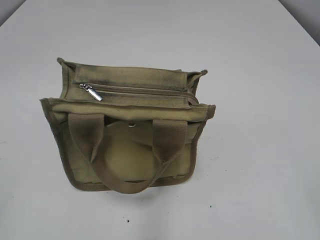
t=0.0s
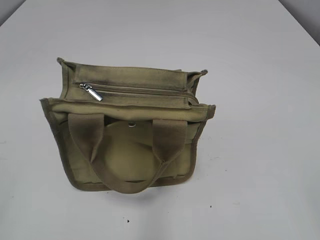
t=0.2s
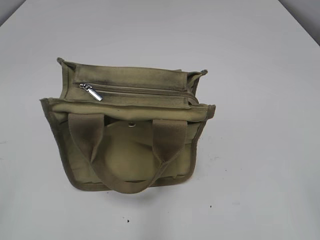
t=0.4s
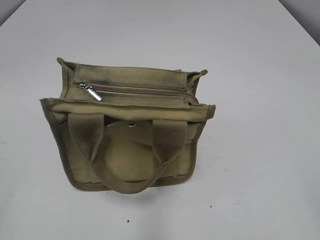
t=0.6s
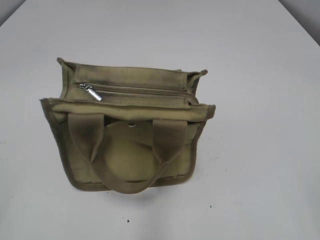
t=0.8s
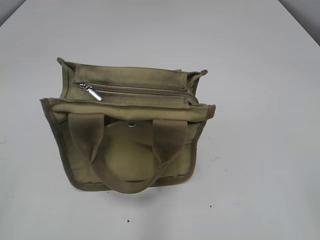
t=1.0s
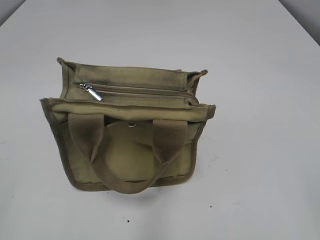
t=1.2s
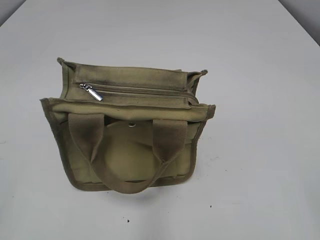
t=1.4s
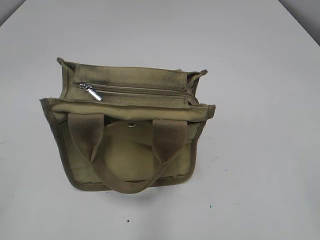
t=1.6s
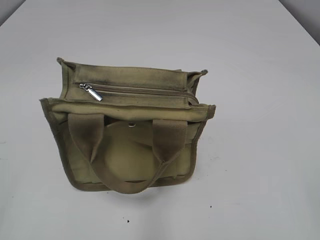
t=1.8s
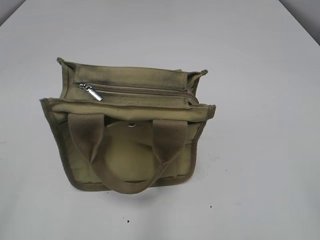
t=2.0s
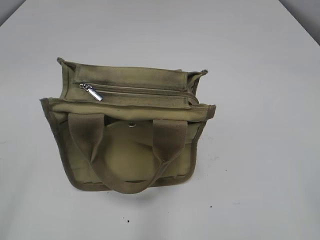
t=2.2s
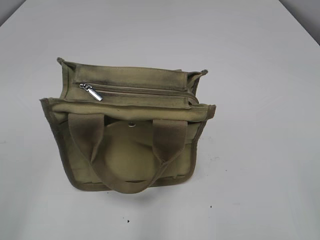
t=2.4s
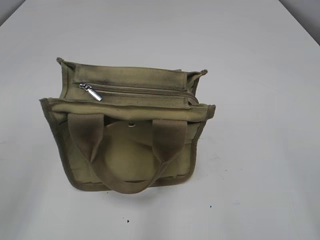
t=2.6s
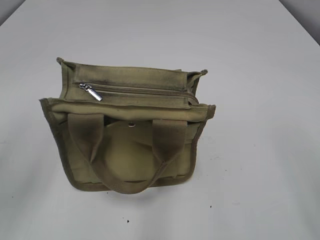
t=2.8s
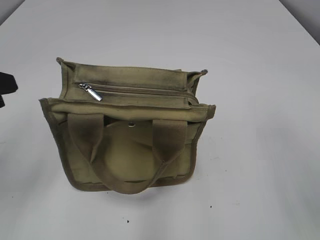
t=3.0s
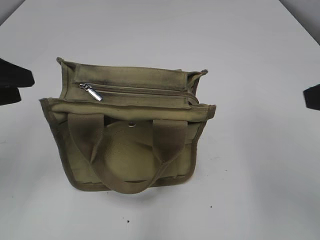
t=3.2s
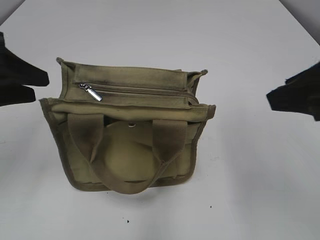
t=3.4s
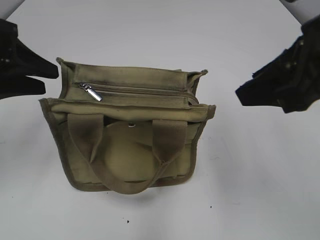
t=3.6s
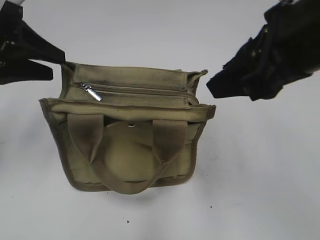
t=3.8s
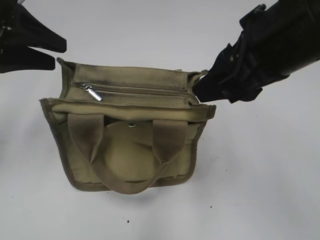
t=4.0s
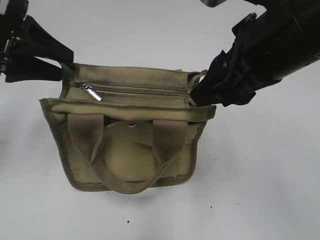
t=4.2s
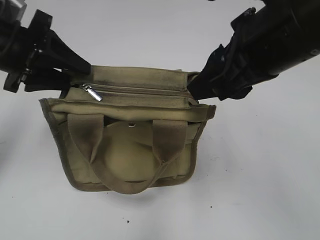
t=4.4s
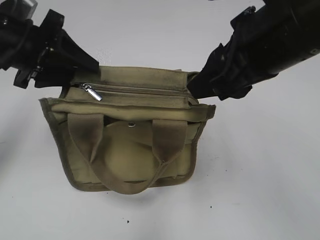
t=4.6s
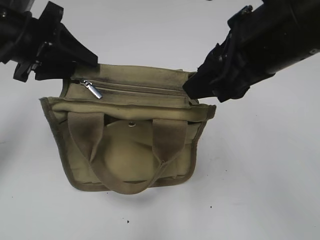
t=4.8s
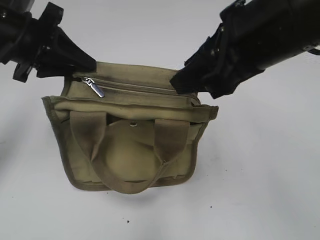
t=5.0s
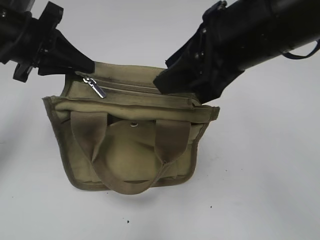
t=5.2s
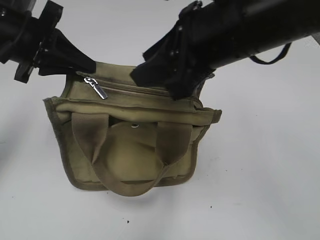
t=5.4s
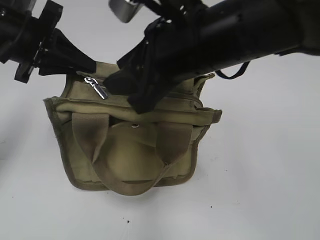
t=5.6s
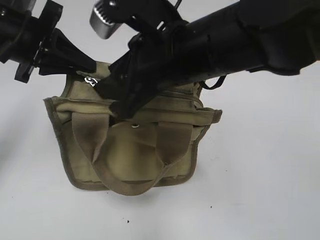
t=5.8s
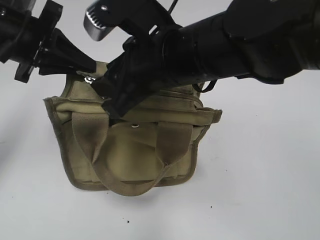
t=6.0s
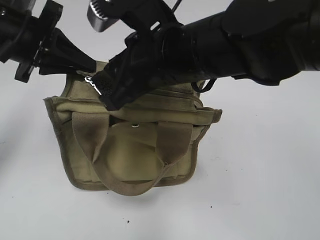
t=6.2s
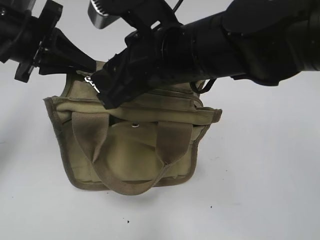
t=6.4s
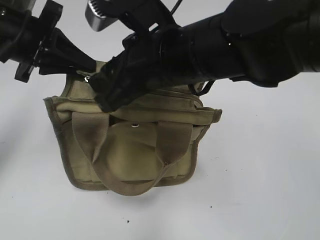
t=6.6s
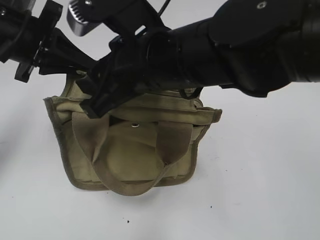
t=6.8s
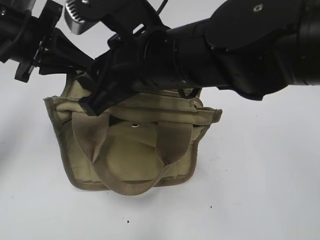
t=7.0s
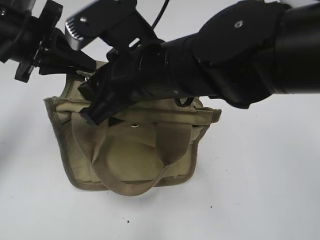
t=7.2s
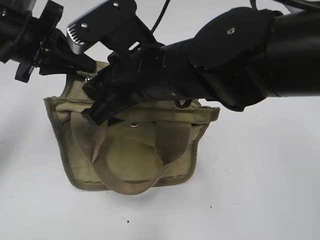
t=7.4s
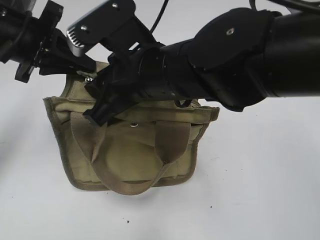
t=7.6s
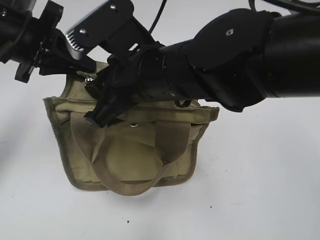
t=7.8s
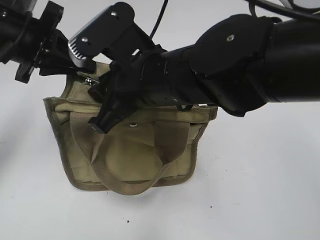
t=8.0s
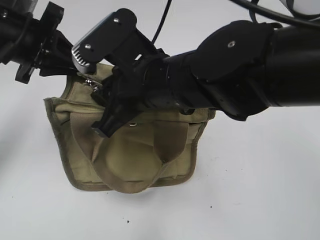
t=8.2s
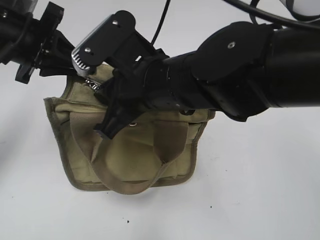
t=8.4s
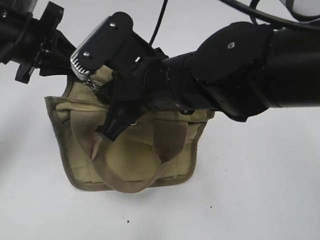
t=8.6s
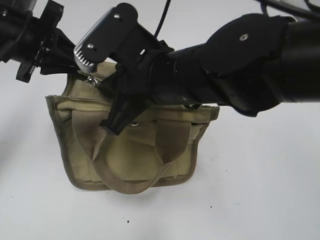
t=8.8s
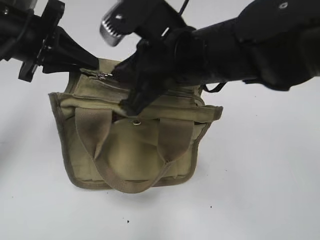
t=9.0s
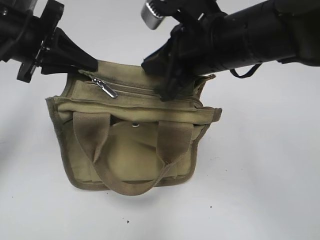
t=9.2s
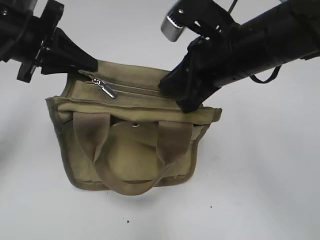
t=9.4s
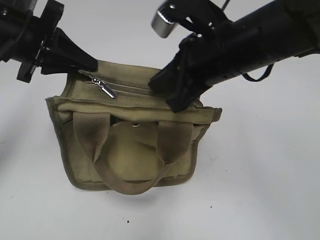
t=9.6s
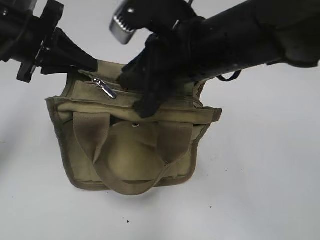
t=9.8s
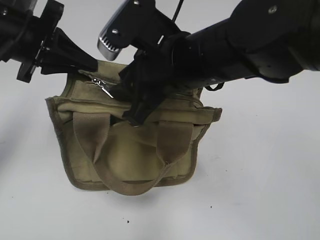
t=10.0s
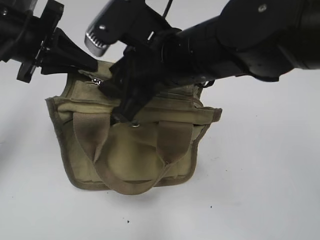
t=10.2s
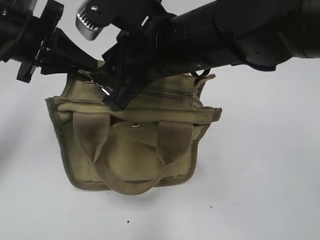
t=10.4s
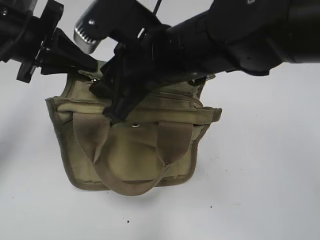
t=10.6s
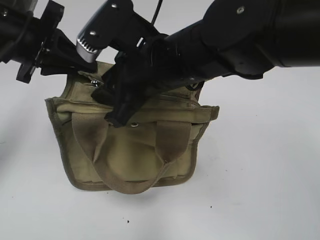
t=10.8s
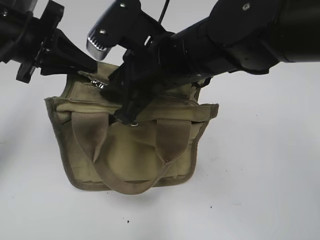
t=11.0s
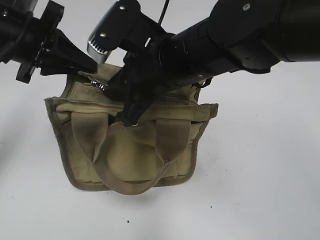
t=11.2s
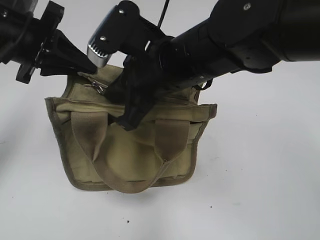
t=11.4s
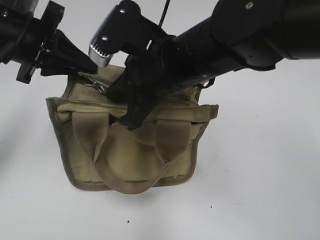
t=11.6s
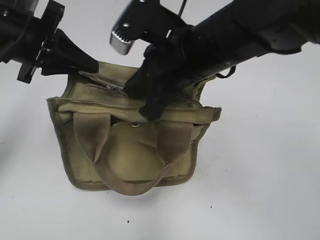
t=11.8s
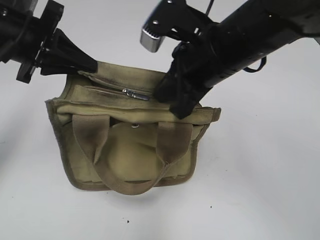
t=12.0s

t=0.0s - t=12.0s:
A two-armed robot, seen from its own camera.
t=1.6s - t=3.0s: The left gripper moves forward, about 20 cm.
t=3.0s - t=4.4s: The left gripper shifts some 15 cm forward and to the right. The right gripper is displaced to the left and forward by some 15 cm.
t=4.4s - t=6.0s: The left gripper closes up, while the right gripper moves to the left and downward, roughly 10 cm.
t=6.0s - t=7.6s: The grippers move only a little.
t=7.6s - t=9.0s: The right gripper closes up.
t=9.0s - t=10.4s: The right gripper reaches some 5 cm to the right, then returns, and opens its fingers.
t=10.4s - t=12.0s: The right gripper is displaced to the right by roughly 5 cm, and closes.

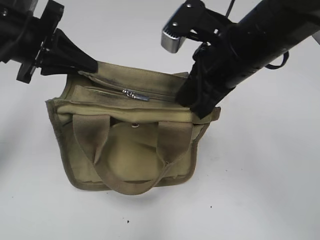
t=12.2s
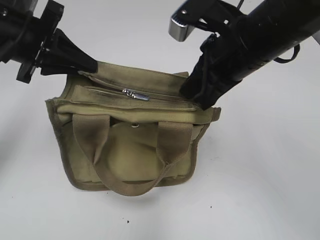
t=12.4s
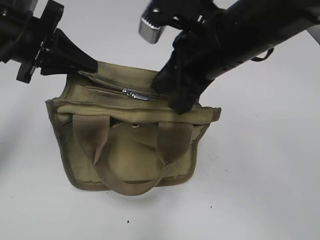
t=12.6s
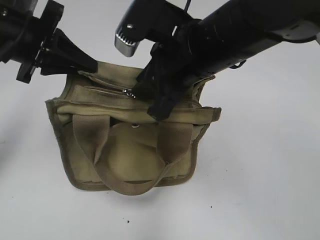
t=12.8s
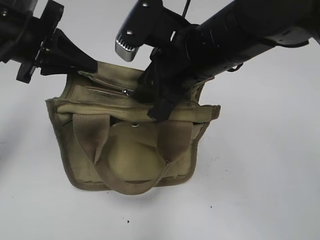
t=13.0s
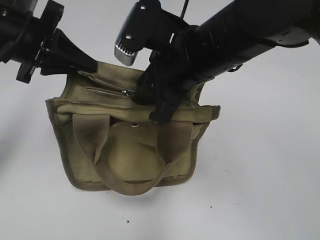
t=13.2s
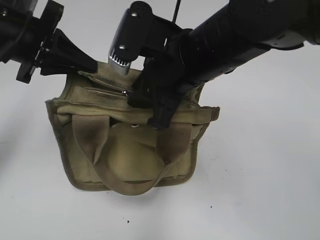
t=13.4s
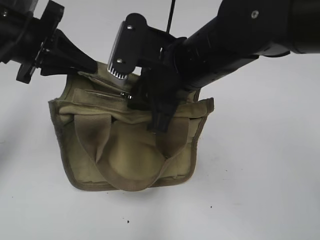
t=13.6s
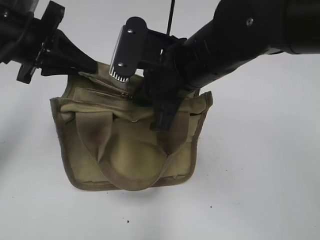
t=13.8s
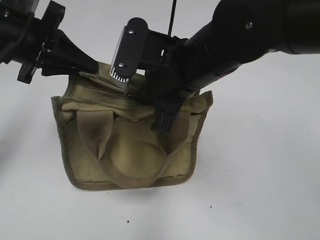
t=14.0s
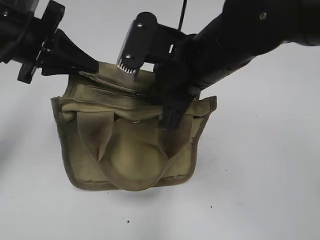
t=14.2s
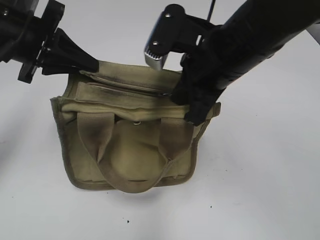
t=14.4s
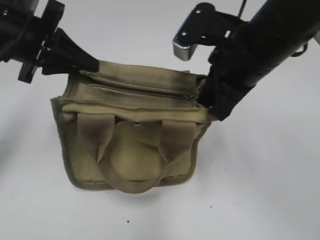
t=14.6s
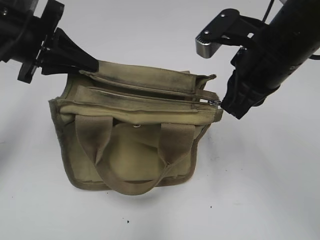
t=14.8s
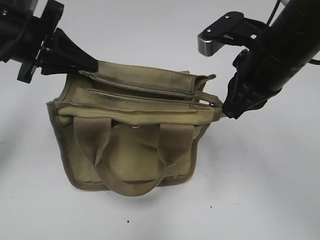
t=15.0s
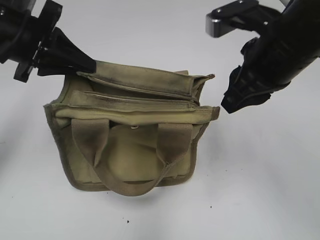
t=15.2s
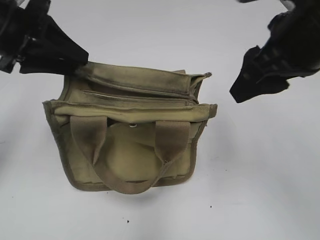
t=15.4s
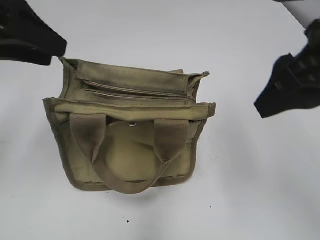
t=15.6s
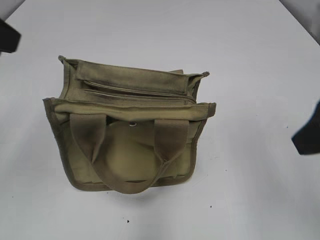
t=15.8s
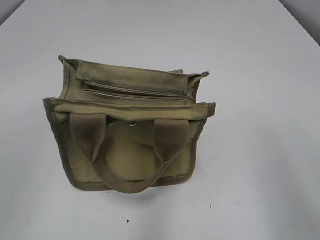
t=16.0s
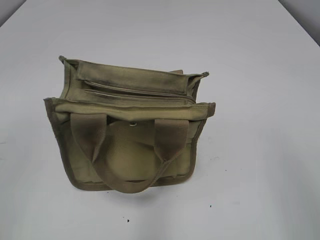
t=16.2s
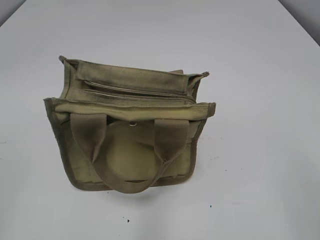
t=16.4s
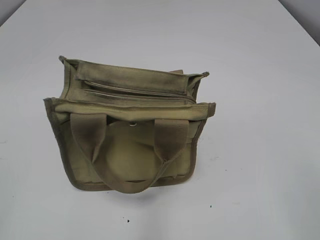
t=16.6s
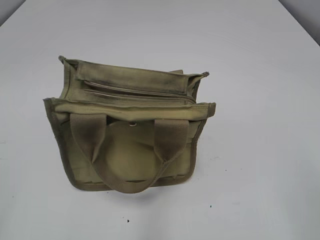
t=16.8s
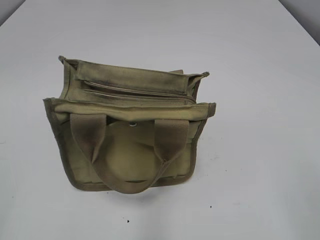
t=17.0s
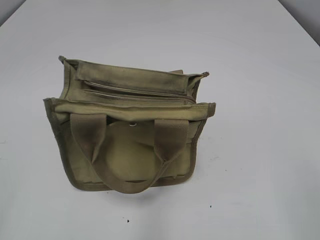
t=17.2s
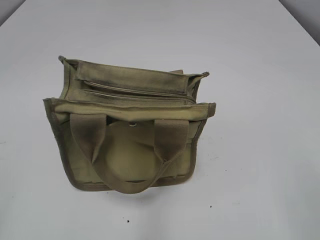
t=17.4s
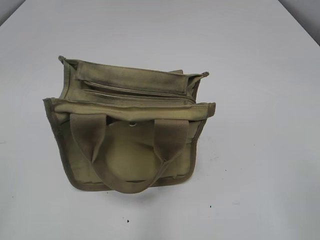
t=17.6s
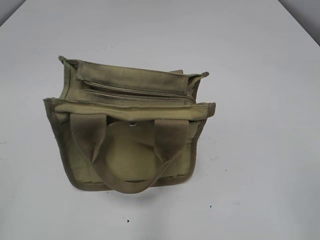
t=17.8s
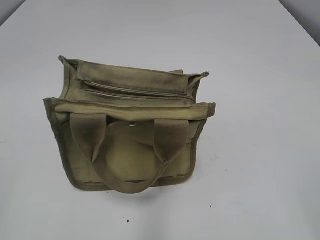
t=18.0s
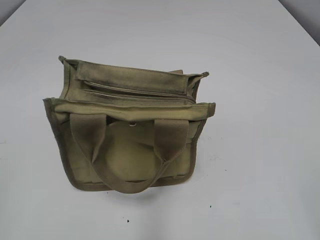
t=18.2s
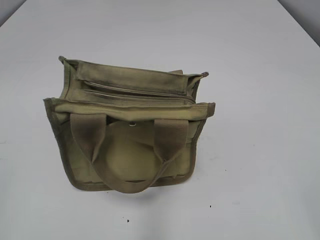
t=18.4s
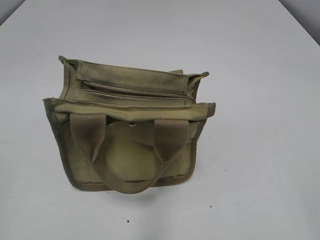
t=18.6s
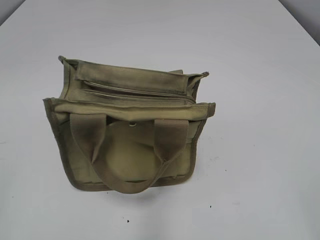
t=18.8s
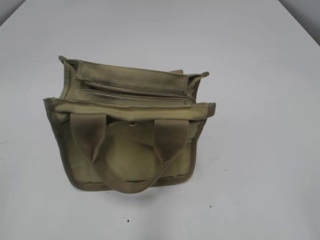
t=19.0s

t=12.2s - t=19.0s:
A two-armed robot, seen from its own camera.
Step, t=12.2s - t=15.0s: Pull open the zipper with your right hand.
Step, t=15.2s - t=15.6s: Hold the bag with your left hand.
t=12.2s - t=13.6s: The right gripper is displaced to the left by some 5 cm, and opens its fingers.
t=13.6s - t=15.0s: The right gripper is displaced to the right by about 10 cm, and closes up.
t=15.0s - t=16.2s: The right gripper moves backward and to the right, some 25 cm, and opens up. The left gripper goes approximately 25 cm backward, and opens.

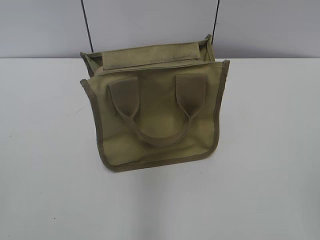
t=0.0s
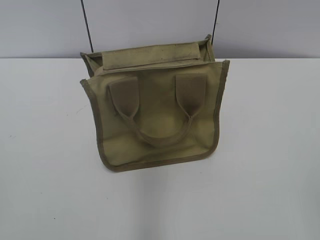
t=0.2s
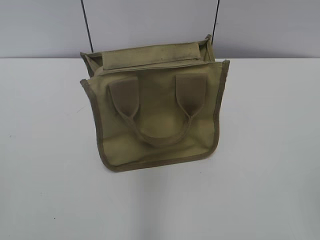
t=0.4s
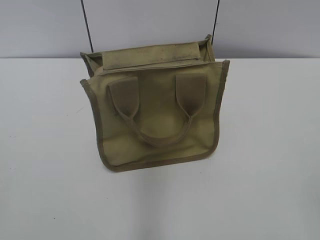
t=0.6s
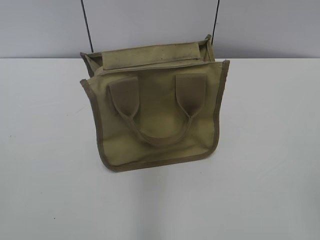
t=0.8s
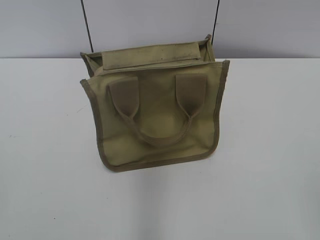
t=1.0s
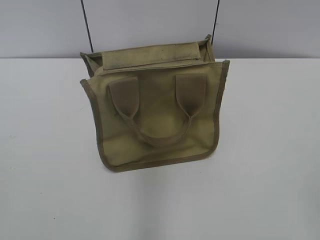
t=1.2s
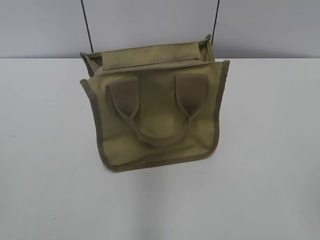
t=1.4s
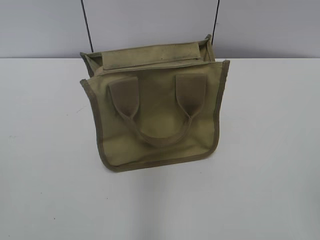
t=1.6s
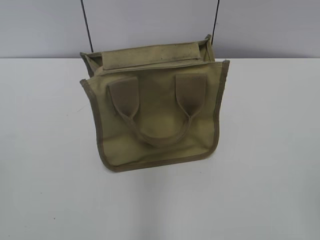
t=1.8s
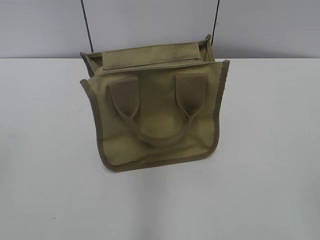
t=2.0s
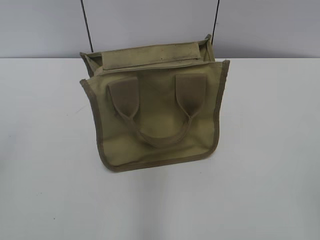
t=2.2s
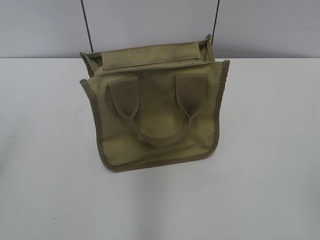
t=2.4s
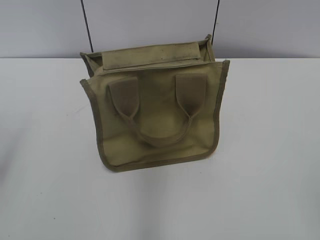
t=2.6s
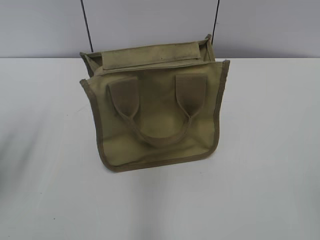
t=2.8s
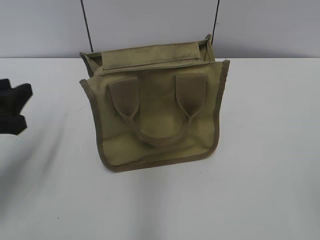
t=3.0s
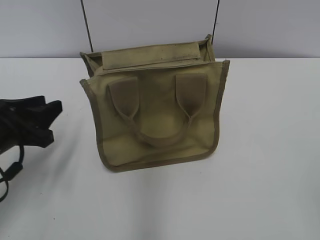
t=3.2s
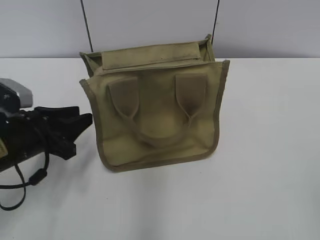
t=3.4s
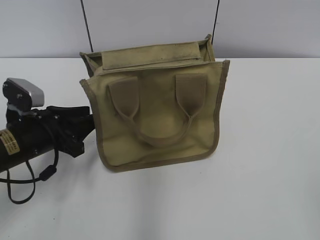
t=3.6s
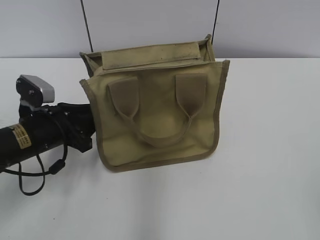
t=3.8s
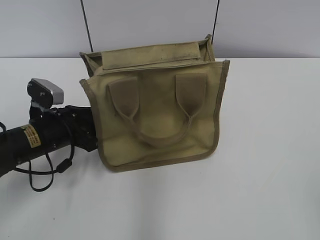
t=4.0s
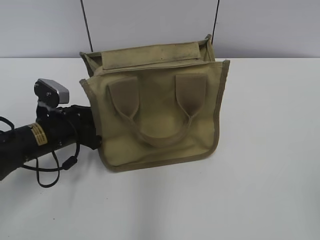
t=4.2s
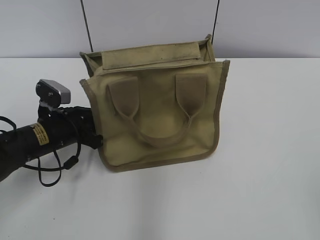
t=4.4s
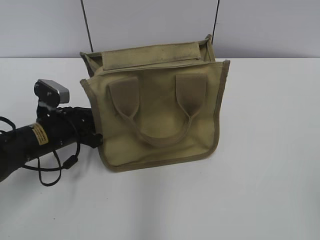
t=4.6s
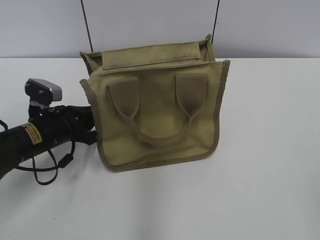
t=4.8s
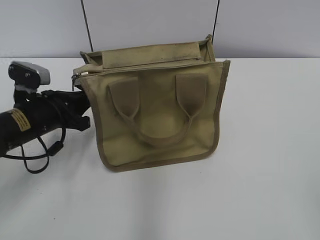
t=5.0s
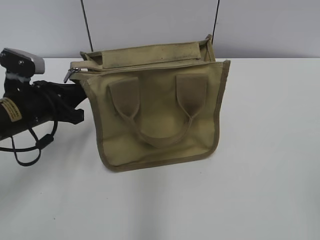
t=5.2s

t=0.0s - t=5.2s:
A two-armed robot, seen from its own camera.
t=1.8s - t=3.4s: The left gripper moves forward and downward, about 30 cm.
t=3.4s - t=5.2s: The left gripper closes its fingers.
